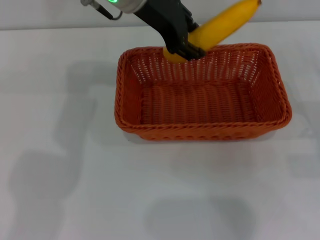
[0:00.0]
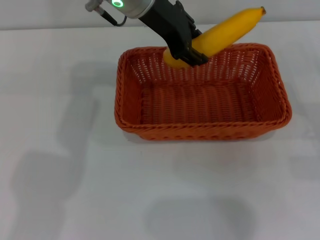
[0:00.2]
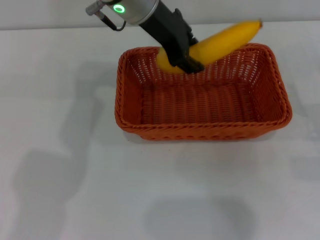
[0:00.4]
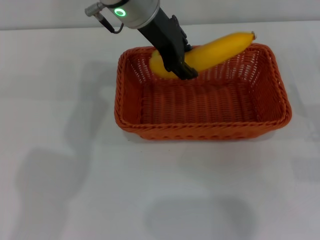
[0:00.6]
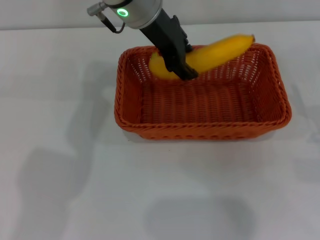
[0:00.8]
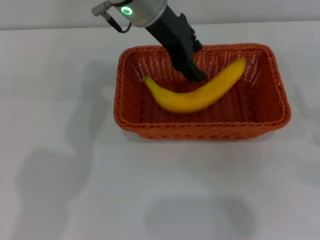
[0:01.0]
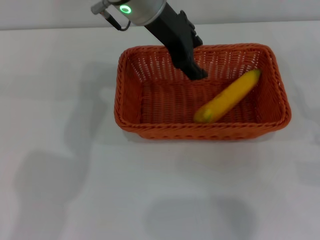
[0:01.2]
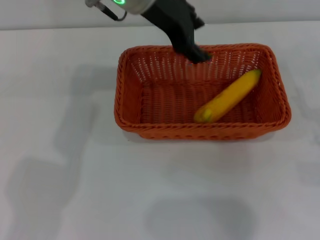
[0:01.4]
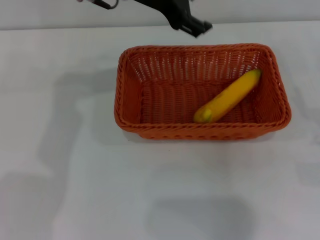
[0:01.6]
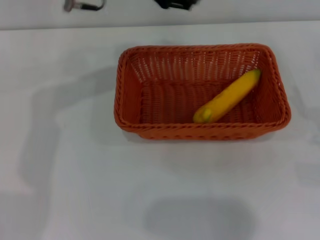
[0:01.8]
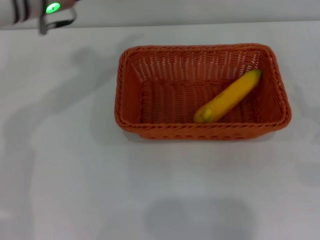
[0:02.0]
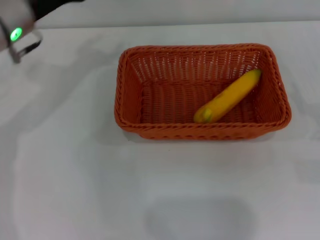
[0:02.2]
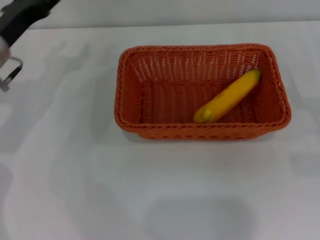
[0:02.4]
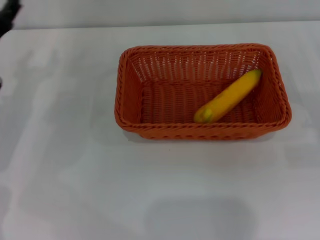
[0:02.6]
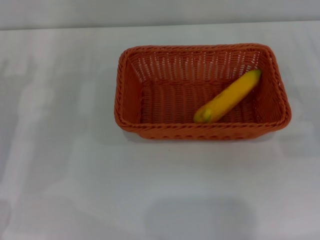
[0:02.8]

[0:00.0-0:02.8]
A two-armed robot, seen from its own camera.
0:00.0 to 0:01.4: The left gripper opens its fingers.
0:01.4 to 0:02.8: The left gripper heads to the left and downward, covering roughly 30 cm. The right gripper ends up about 5 cm from where it was.

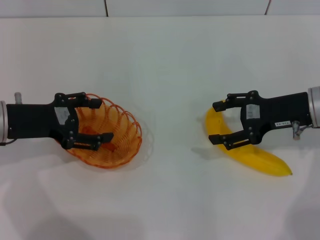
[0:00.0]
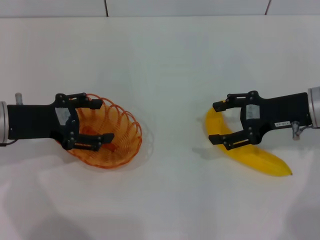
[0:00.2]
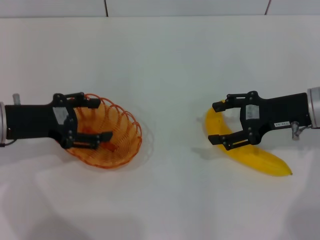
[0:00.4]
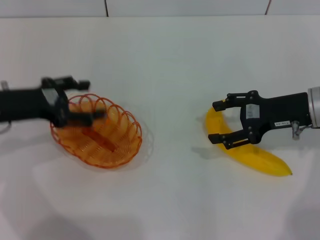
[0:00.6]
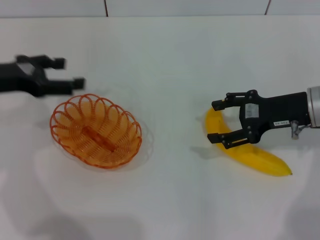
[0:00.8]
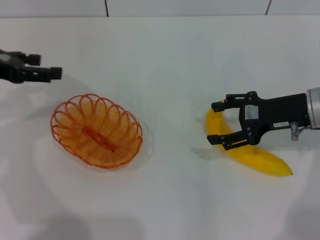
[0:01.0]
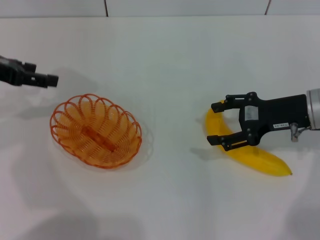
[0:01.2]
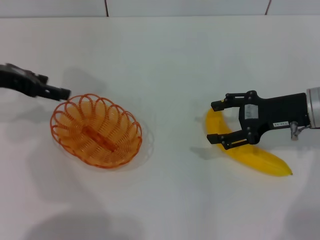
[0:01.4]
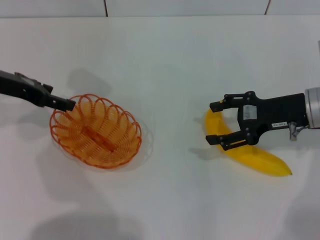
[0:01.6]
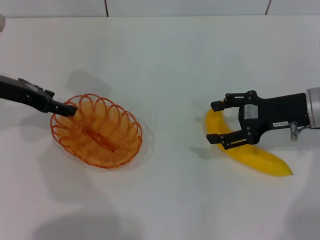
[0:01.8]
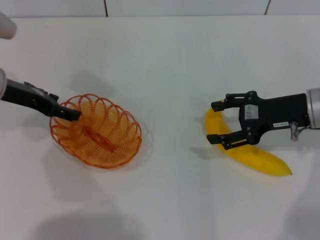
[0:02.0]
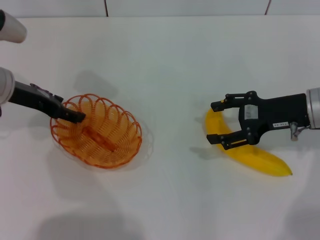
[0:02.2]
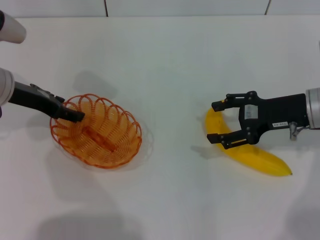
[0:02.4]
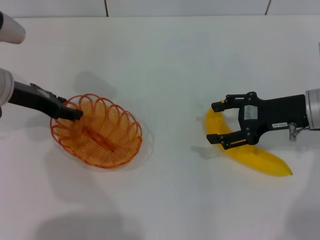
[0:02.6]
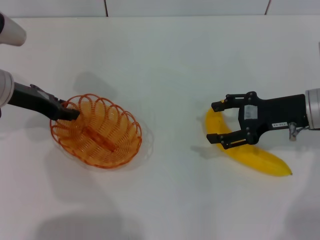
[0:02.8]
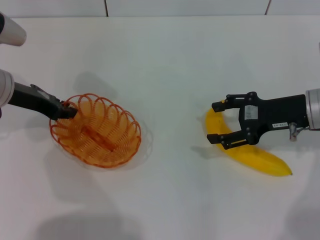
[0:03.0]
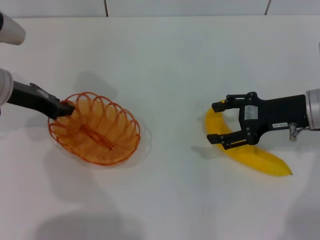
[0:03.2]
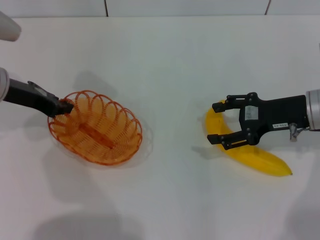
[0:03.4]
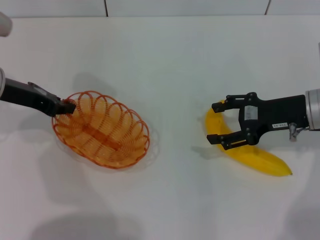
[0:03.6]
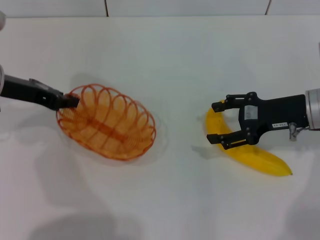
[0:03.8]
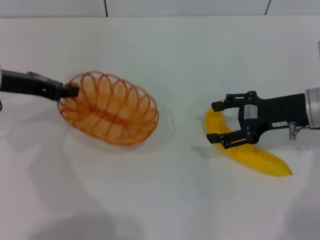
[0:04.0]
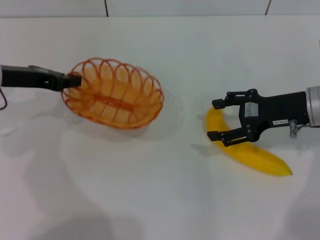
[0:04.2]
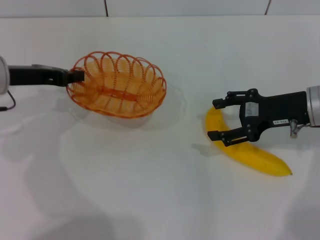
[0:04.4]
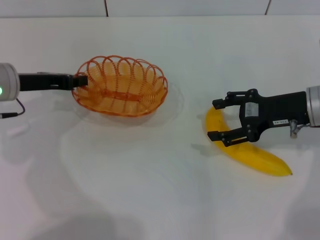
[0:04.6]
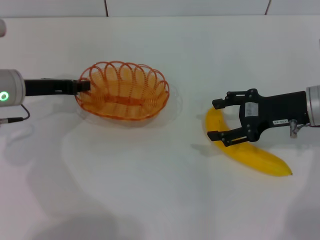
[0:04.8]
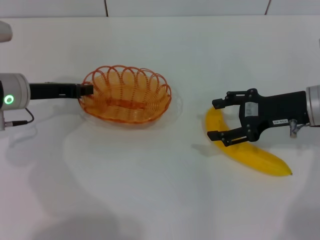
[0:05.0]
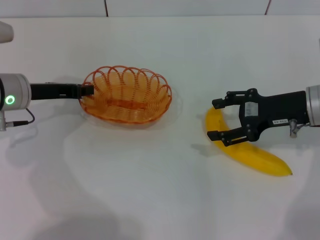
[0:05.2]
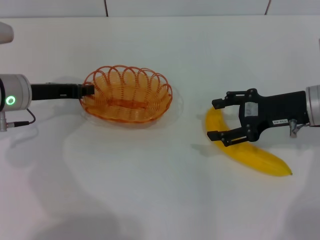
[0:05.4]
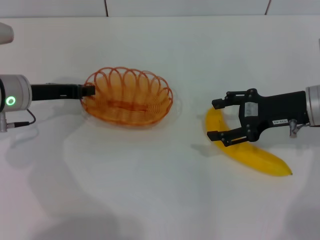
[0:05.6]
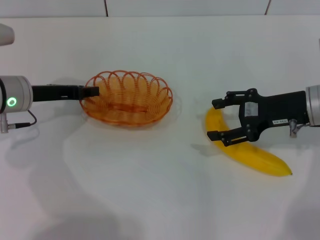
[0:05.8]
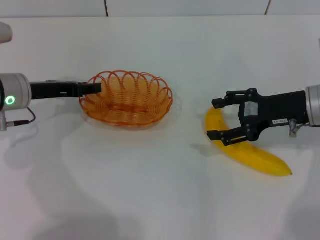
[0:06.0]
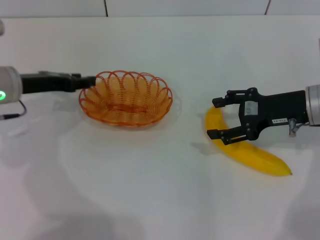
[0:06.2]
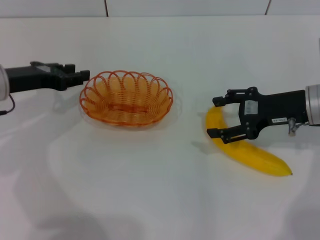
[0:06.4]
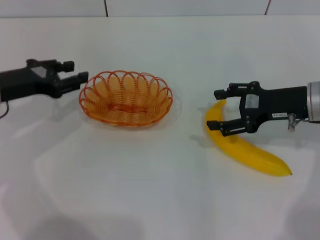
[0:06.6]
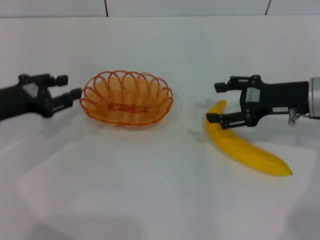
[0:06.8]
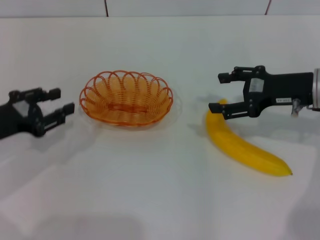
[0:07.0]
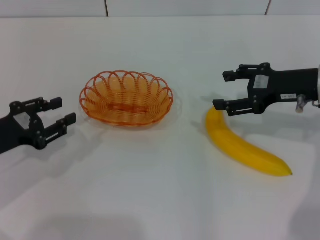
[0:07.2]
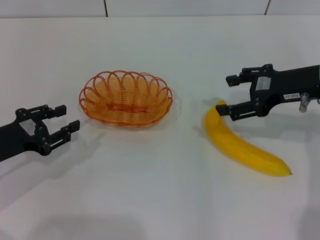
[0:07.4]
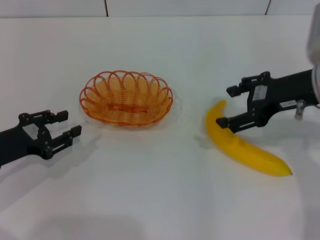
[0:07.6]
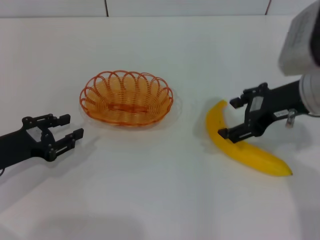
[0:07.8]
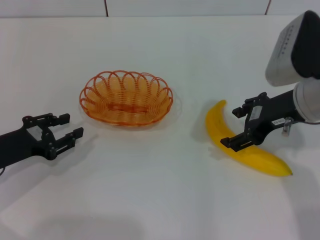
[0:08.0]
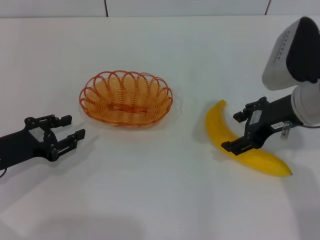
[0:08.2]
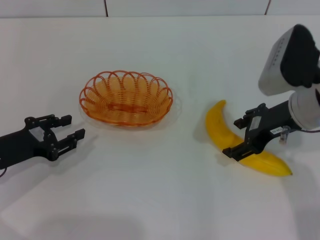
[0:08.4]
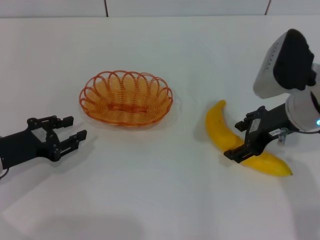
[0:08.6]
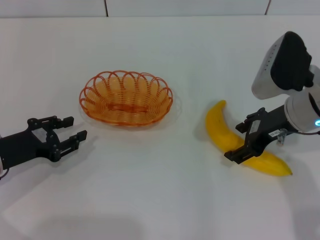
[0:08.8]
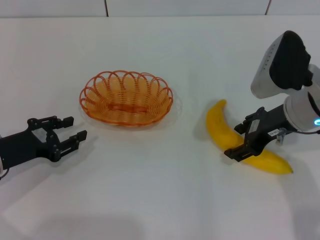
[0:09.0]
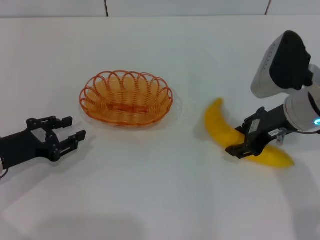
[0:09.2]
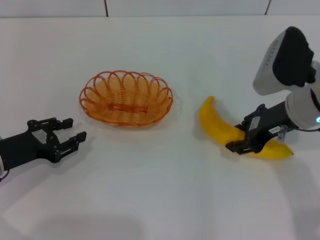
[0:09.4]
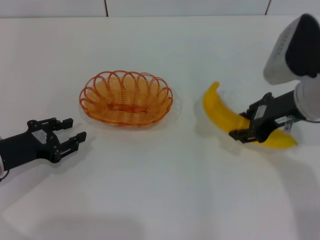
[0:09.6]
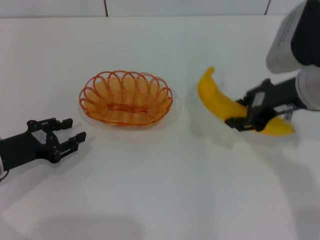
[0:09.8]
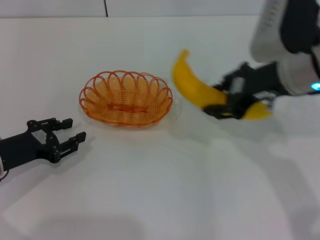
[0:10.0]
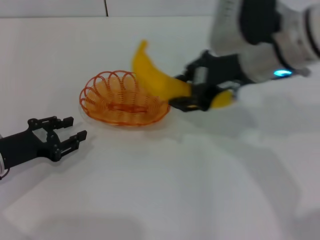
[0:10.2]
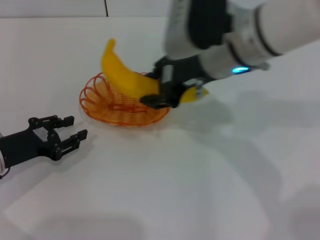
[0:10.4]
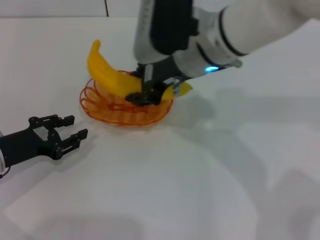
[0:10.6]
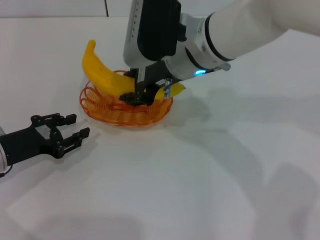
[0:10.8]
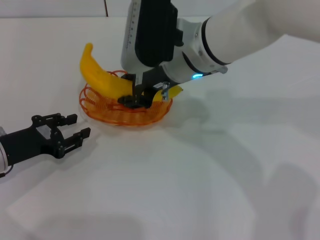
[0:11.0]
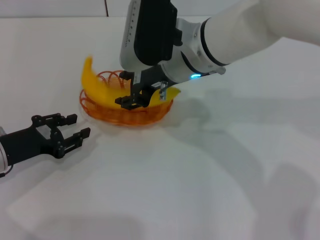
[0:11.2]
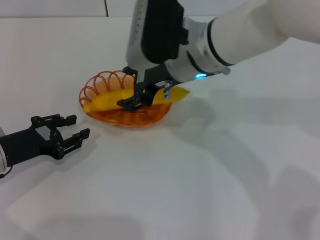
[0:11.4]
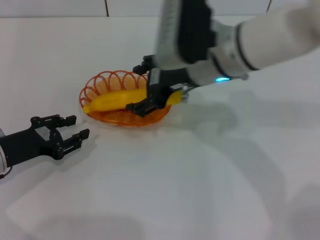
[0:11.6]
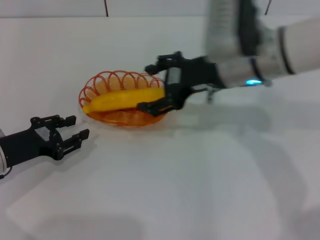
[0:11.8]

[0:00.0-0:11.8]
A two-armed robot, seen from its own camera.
Step, 0:00.0 to 0:03.6: Pick up the basket with the left gripper.
Step, 0:04.0 to 0:06.0: Place the basket in the center of view with the left gripper.
Step, 0:06.2 to 0:09.8: Pick up the banana with the right gripper.
Step, 0:10.0 to 0:11.2: Place the banana into the basket with the right gripper.
0:00.0 to 0:01.4: The left gripper moves upward and forward, roughly 10 cm.
0:01.4 to 0:03.0: The left gripper changes place by some 5 cm, and closes up.
0:03.0 to 0:04.4: The left gripper closes up.
0:04.4 to 0:06.0: The grippers move only a little.
0:06.0 to 0:07.4: The left gripper heads backward and to the left, covering approximately 10 cm.
0:07.4 to 0:08.8: The right gripper ends up approximately 5 cm from where it was.
0:08.8 to 0:10.4: The right gripper travels to the left and upward by about 15 cm, and closes.
0:10.4 to 0:11.8: The right gripper moves some 5 cm, and opens its fingers.

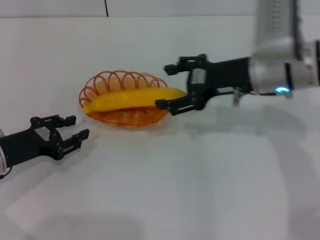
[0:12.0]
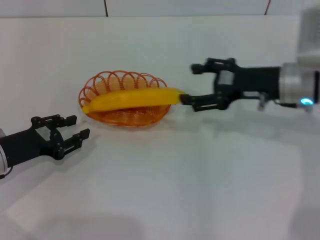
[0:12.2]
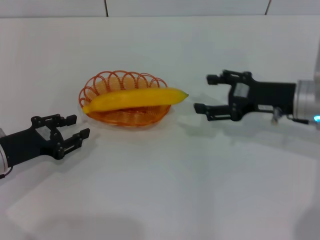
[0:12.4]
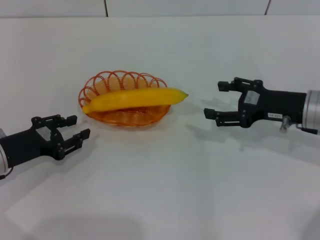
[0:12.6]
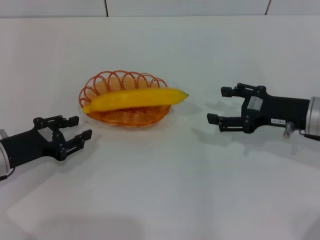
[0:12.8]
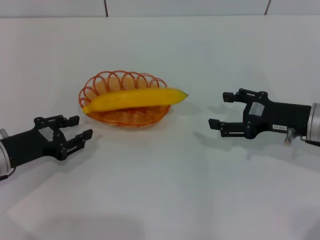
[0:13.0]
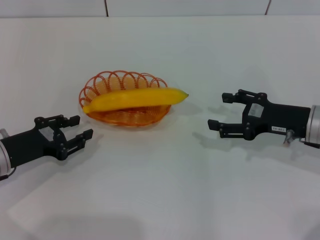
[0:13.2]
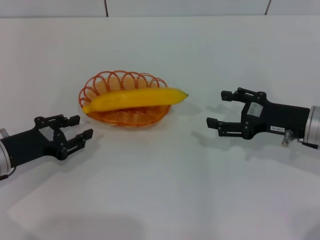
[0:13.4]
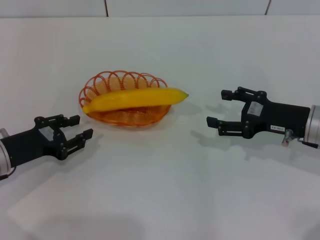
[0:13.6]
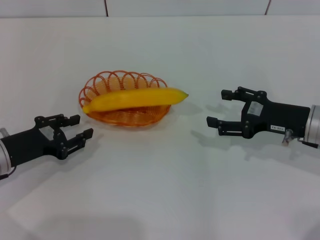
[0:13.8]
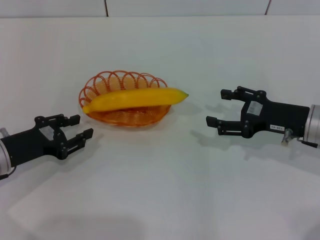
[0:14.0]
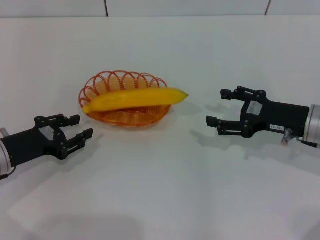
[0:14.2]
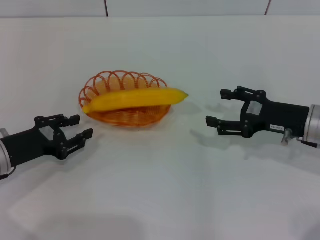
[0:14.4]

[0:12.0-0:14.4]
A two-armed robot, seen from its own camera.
0:12.0 to 0:13.2: The right gripper is displaced to the right, downward and backward by some 15 cm.
0:13.2 to 0:14.4: Both grippers stay put.
